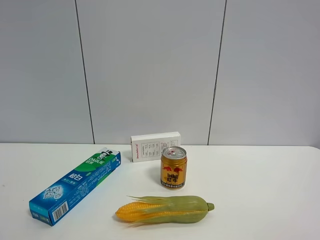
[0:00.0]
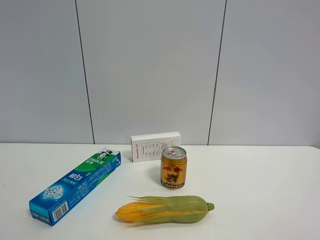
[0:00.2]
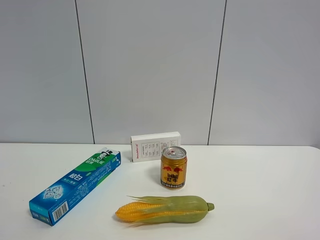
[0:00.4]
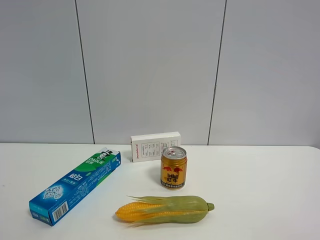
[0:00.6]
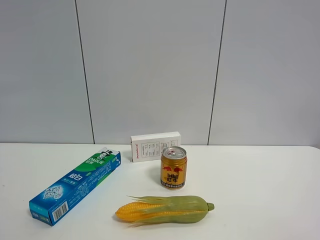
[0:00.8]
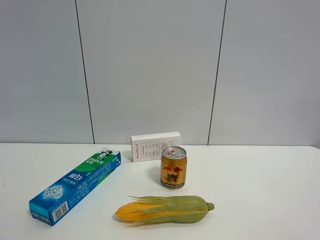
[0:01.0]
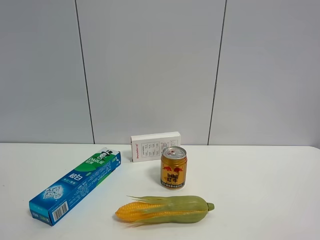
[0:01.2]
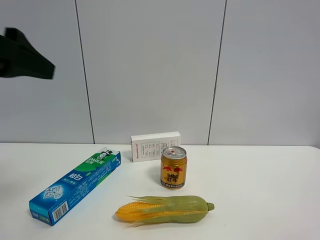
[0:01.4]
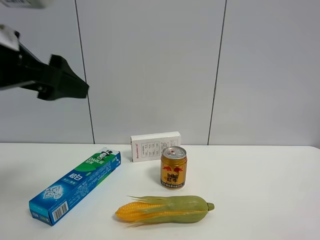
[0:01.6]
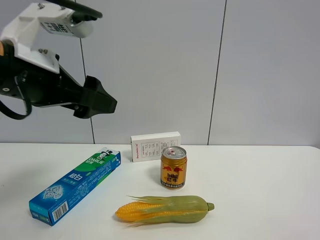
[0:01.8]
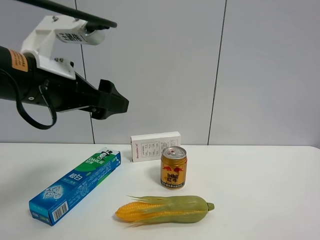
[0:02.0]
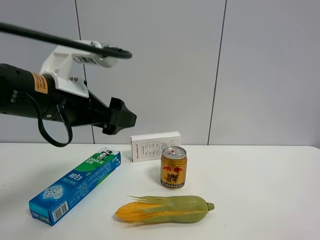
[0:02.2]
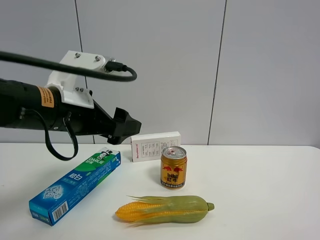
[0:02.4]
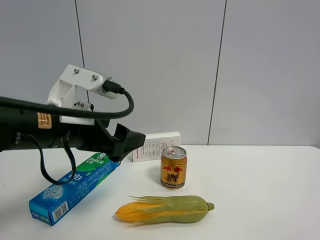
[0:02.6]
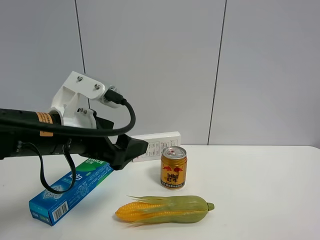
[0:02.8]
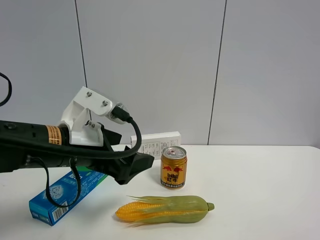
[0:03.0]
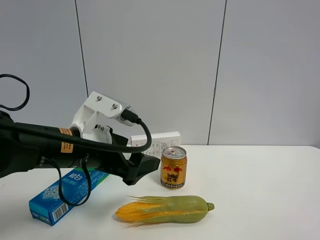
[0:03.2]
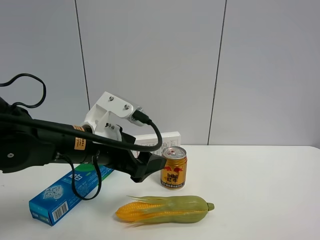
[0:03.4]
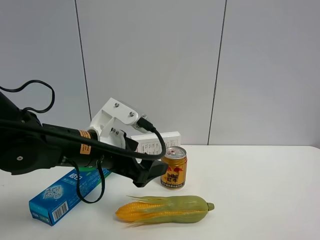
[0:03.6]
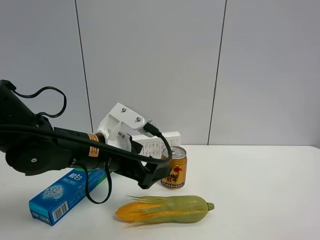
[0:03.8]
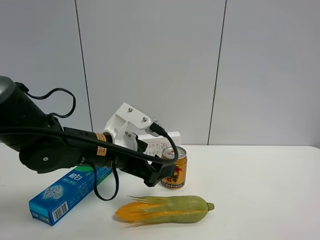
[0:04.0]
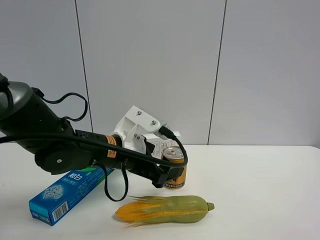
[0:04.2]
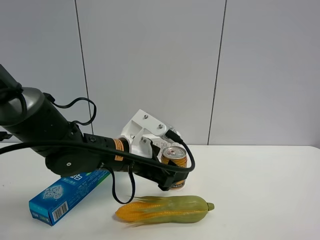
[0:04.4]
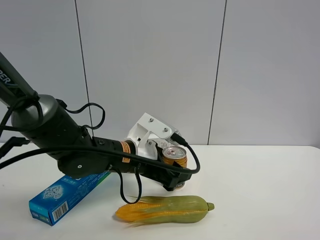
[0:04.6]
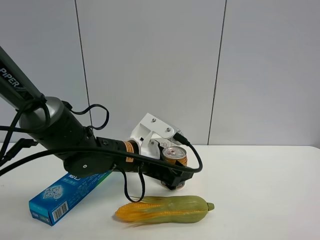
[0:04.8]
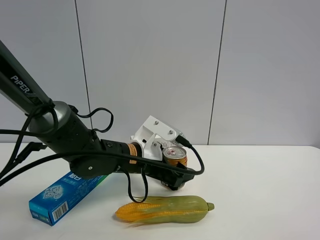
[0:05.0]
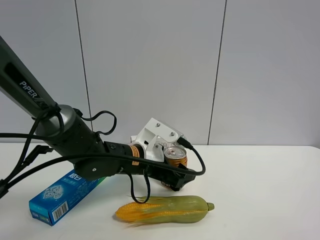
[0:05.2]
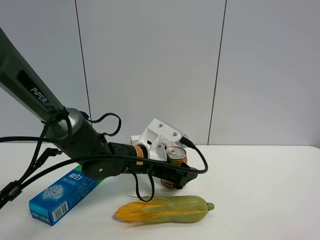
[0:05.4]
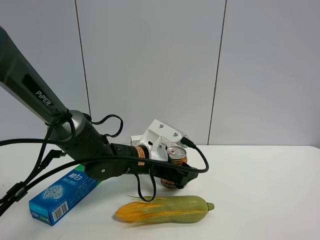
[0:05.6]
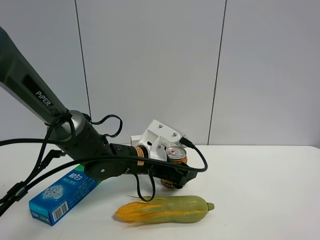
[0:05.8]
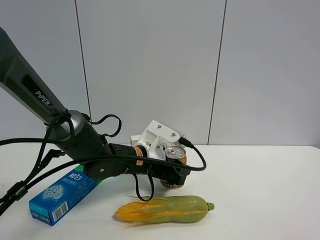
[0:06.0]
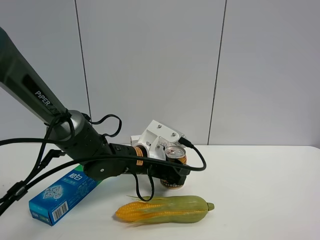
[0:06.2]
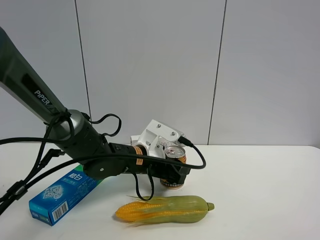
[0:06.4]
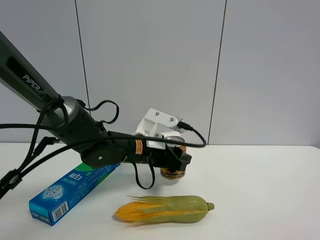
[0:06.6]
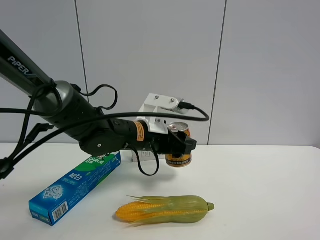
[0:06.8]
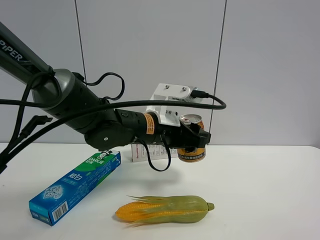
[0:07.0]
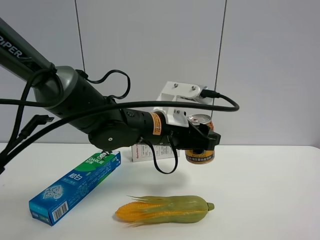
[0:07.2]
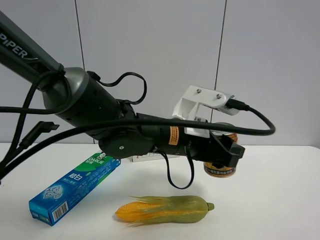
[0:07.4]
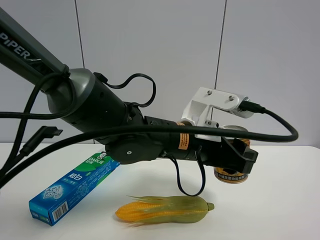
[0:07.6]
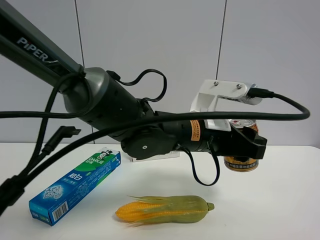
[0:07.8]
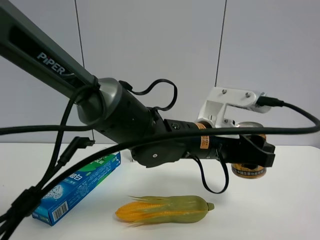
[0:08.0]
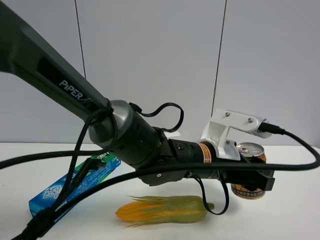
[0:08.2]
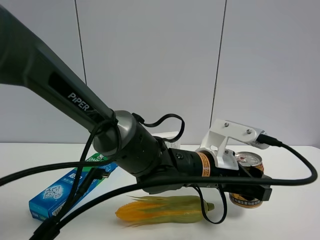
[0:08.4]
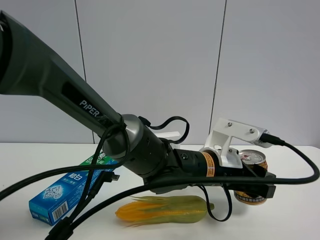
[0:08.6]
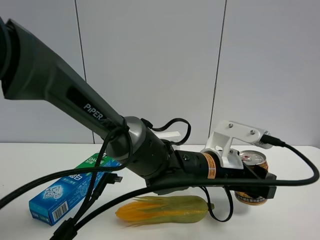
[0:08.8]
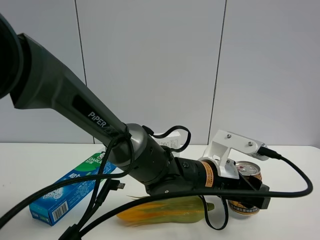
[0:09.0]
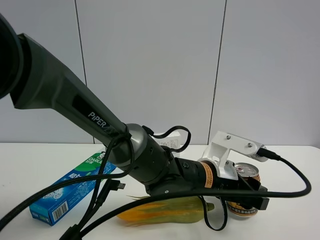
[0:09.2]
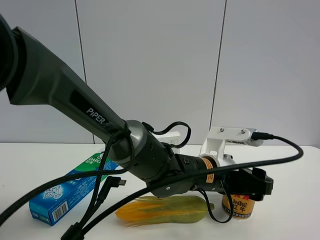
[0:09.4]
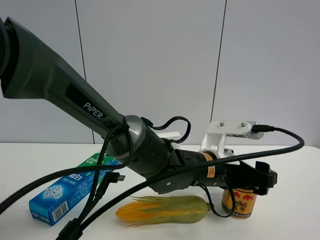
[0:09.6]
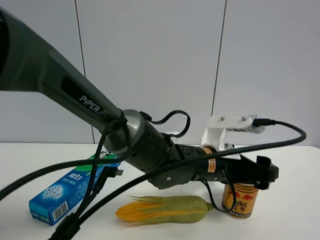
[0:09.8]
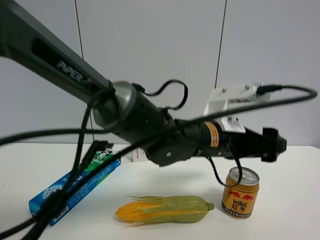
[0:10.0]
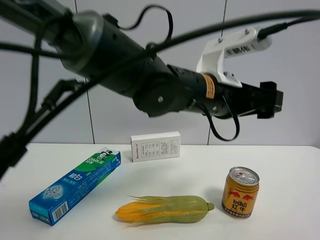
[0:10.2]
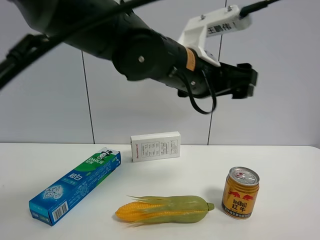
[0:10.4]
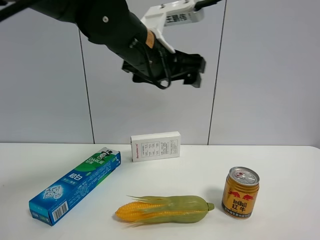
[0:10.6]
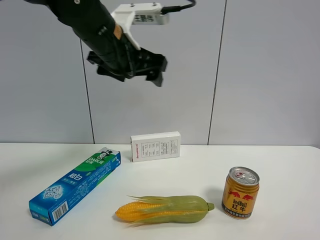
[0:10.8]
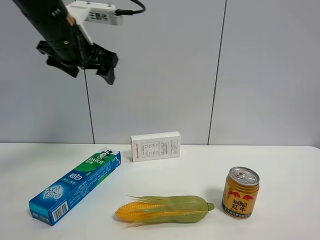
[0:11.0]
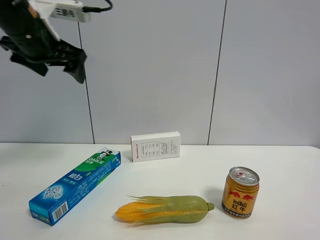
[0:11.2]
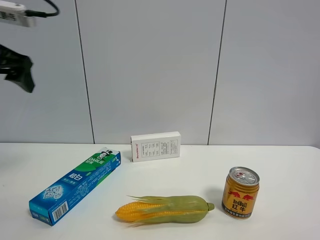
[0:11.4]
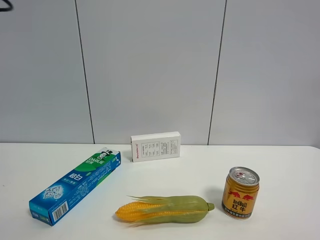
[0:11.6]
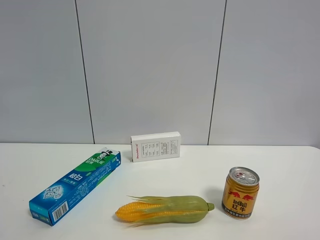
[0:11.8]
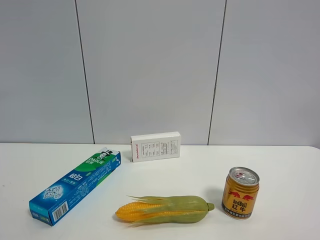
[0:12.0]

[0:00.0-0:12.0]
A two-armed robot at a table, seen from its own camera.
Task of the whole recording: the gripper move the object.
Step, 0:00.0 to 0:06.0: Grasp the red bull with the left gripper.
Step, 0:06.2 to 0:09.4: Place the red bull on the table with the left gripper.
0:00.0 to 0:01.6: The left gripper is displaced forward and to the right by about 25 cm.
0:01.6 to 0:03.0: The left gripper shifts about 15 cm downward and to the right.
0:03.0 to 0:04.4: The left gripper goes about 10 cm to the right, forward and downward.
0:04.4 to 0:06.0: The left gripper shifts by some 5 cm, and closes.
0:06.0 to 0:07.6: The left gripper shifts about 15 cm upward, to the right and backward.
0:07.6 to 0:09.0: The left gripper heads downward, covering some 10 cm.
0:09.0 to 0:10.4: The left gripper is displaced upward by approximately 20 cm, and opens.
0:10.4 to 0:12.0: The left gripper goes some 40 cm to the left and backward.

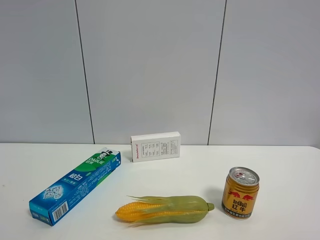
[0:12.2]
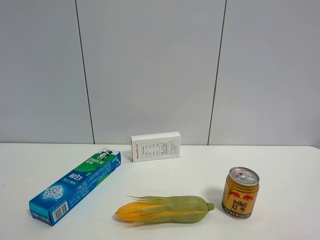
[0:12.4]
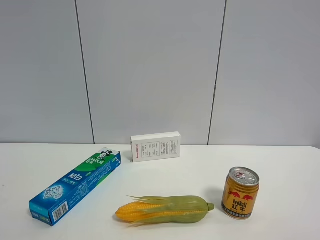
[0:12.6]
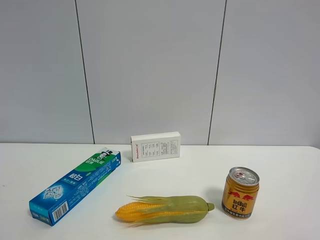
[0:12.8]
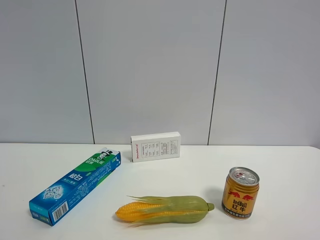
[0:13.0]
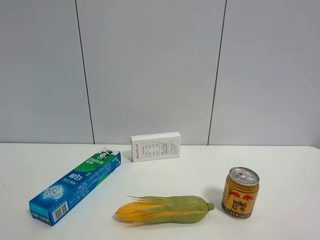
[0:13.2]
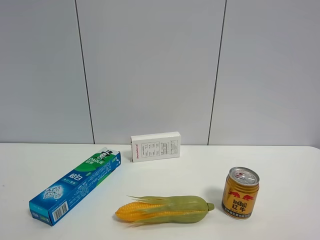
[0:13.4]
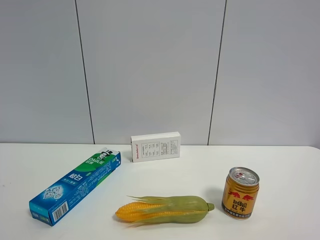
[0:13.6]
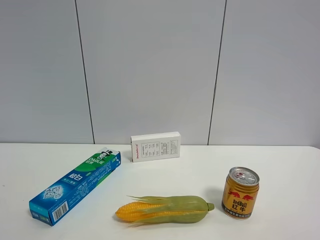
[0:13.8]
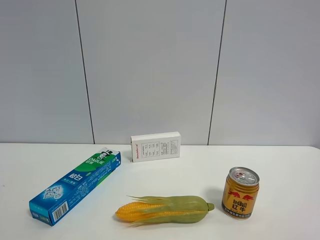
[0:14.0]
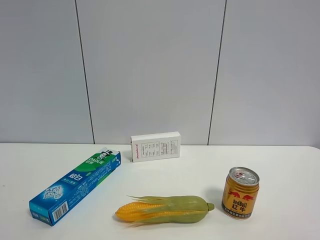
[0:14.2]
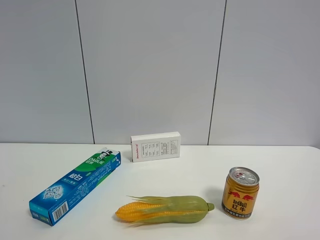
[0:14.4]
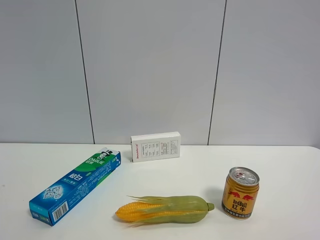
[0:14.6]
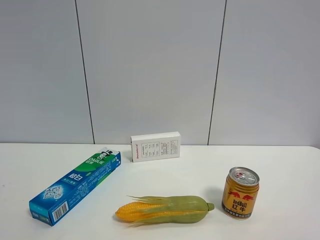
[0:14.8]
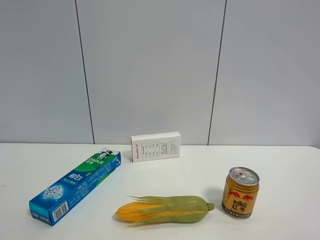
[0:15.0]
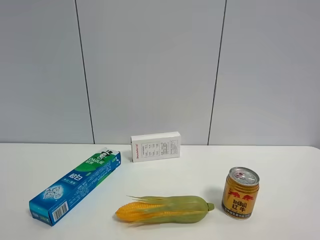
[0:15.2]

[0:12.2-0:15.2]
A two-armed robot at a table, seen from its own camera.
Task of the whole recording: the gripper move the object.
0:13.8 to 0:15.2: Neither gripper changes place.

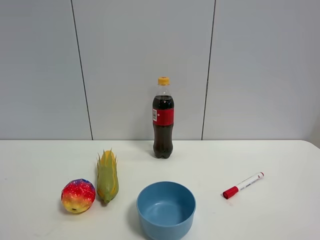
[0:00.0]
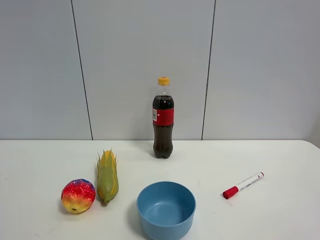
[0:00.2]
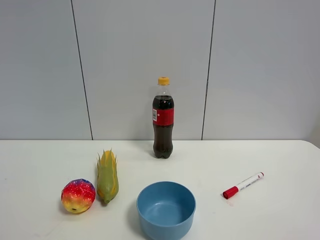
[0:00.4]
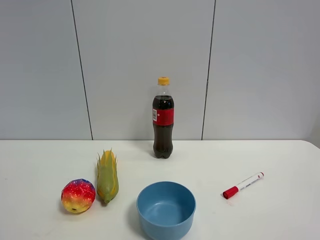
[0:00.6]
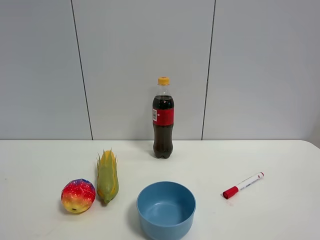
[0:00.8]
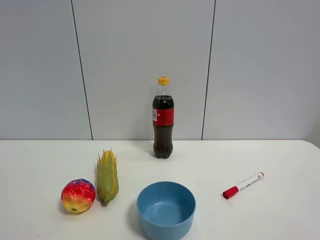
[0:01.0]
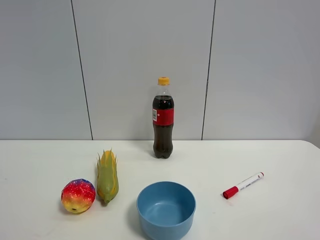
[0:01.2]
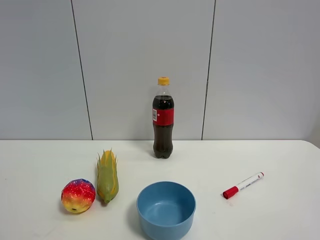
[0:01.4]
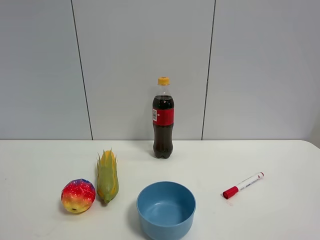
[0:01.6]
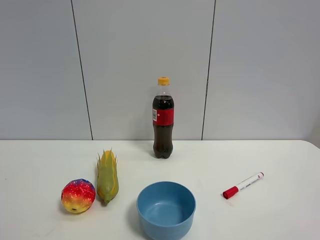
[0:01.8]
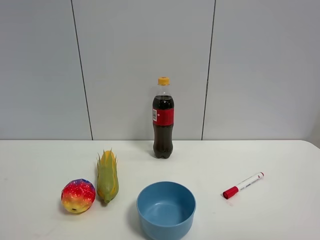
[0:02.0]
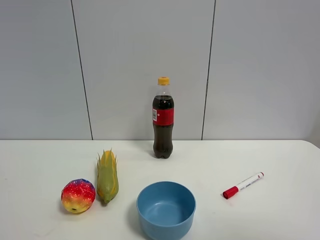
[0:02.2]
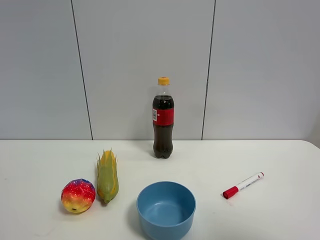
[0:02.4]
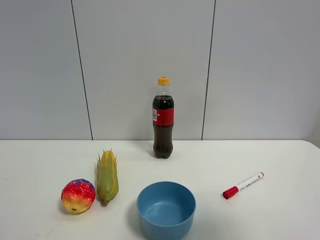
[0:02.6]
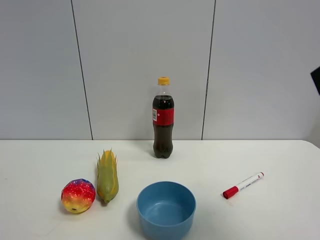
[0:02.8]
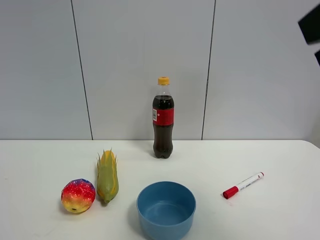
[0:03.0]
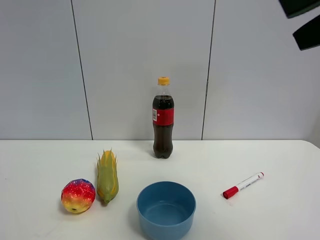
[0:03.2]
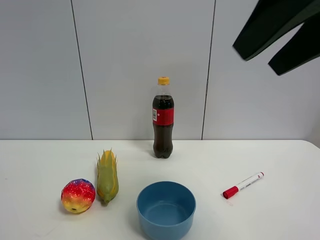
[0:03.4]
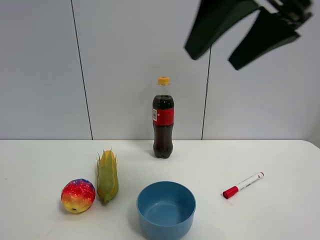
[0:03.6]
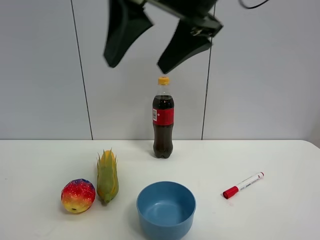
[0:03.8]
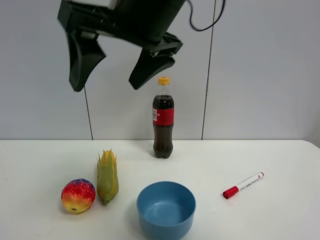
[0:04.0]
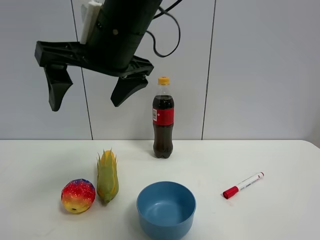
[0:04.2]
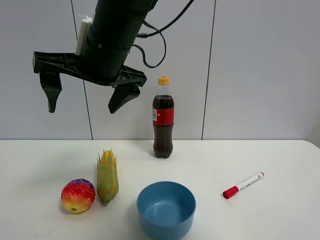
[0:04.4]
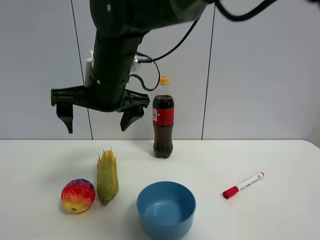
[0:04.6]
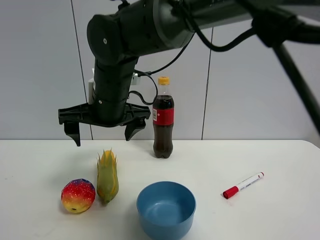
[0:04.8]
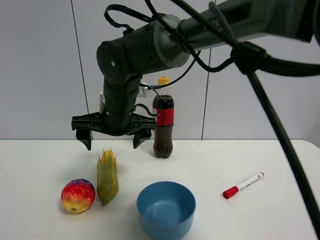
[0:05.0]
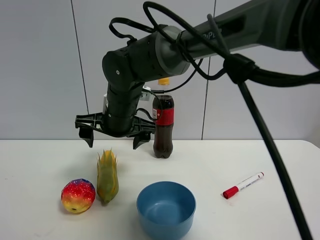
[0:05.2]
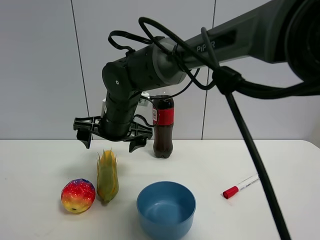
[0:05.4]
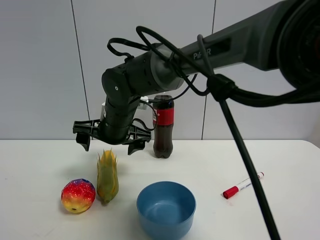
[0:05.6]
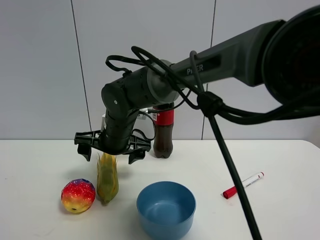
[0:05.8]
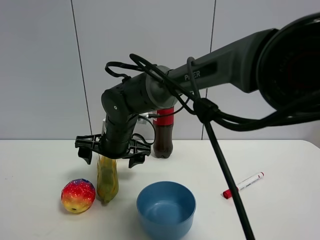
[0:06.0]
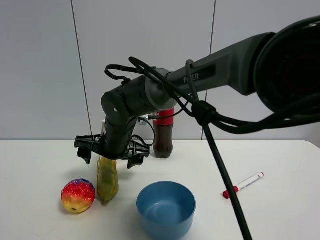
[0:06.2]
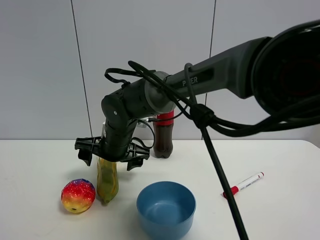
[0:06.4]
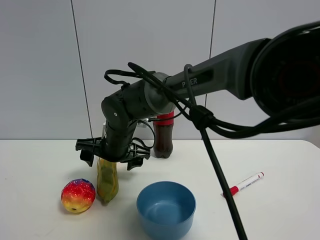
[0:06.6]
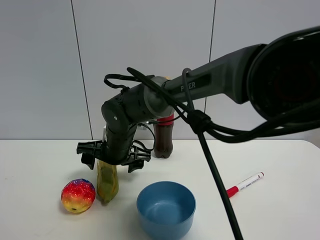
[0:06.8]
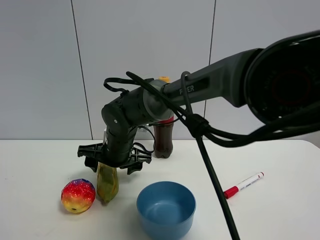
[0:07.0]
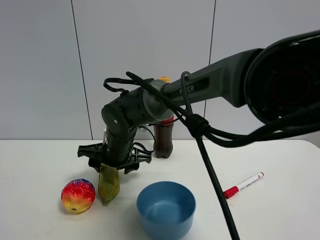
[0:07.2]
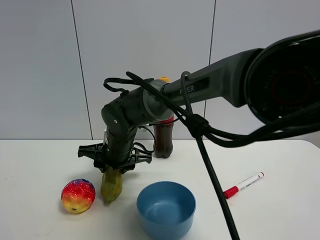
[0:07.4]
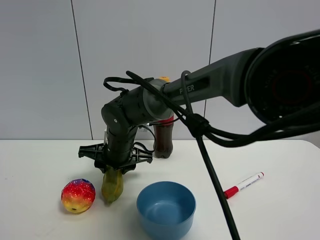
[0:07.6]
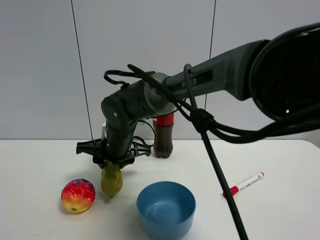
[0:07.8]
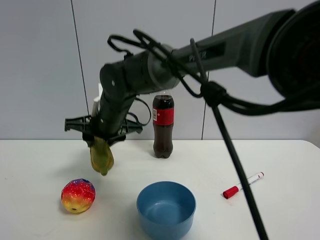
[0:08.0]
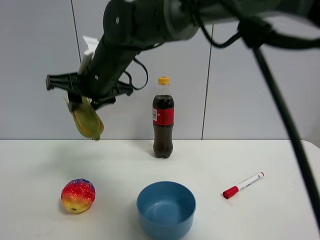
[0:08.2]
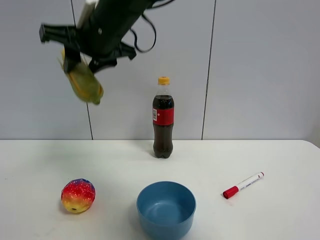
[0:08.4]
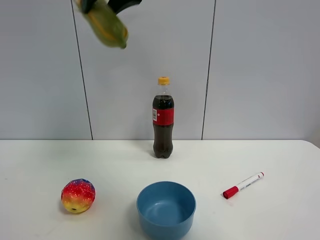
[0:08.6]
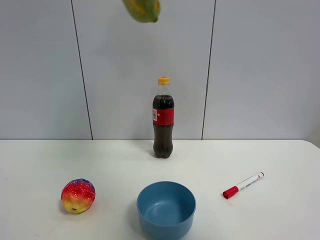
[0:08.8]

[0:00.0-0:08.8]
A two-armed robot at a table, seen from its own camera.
Task of the whole recording: the gripper move the object.
Step, 0:00.0 to 0:07.4: Grasp the corn with the right gripper.
0:00.0 to 0:01.4: Neither gripper changes place.
0:01.4 to 0:03.0: The right gripper heads forward, upward and to the left, covering some 20 cm.
0:03.0 to 0:04.4: The right gripper travels to the left and forward by approximately 35 cm.
0:04.4 to 0:05.8: The right gripper travels downward and forward by roughly 15 cm.
0:05.8 to 0:07.4: The right gripper closes up.
0:07.4 to 0:08.8: The right gripper goes roughly 35 cm upward.
